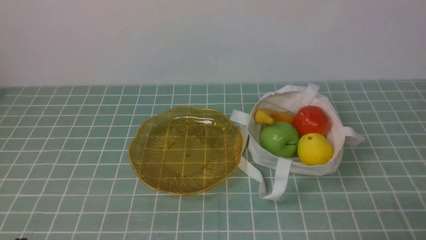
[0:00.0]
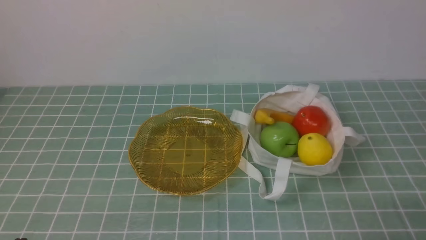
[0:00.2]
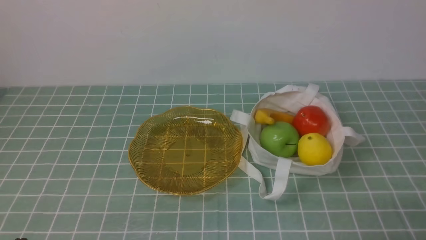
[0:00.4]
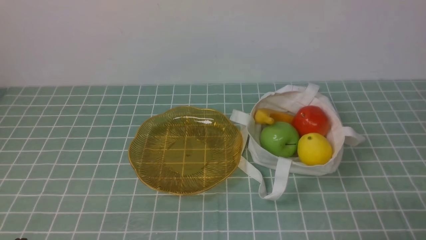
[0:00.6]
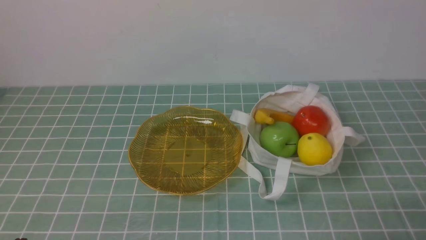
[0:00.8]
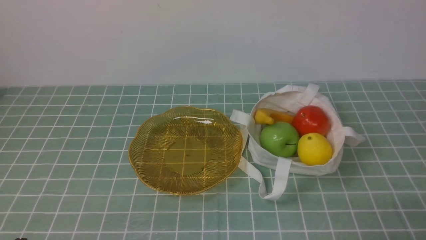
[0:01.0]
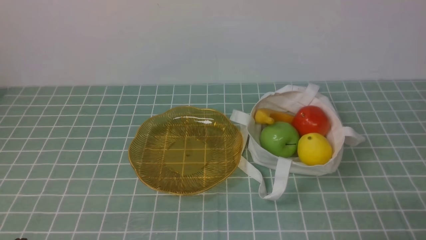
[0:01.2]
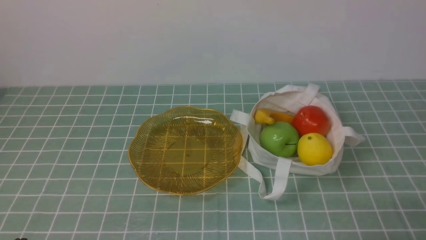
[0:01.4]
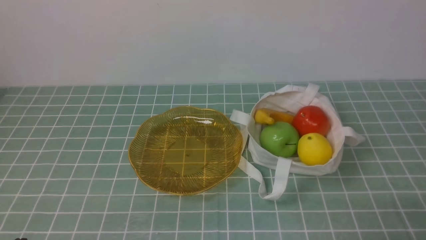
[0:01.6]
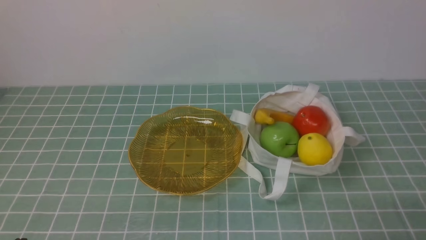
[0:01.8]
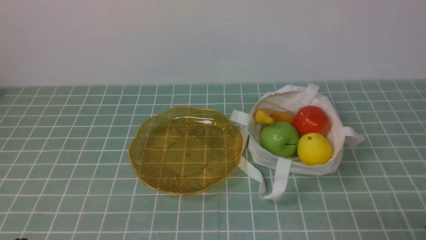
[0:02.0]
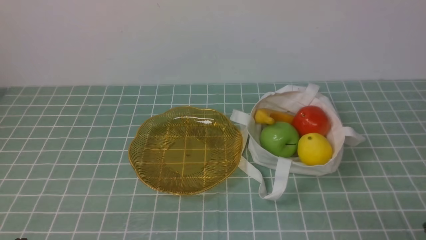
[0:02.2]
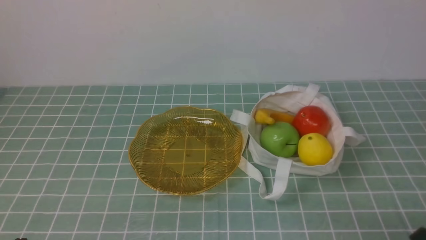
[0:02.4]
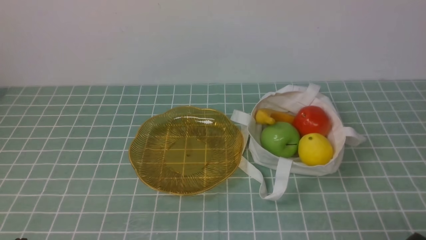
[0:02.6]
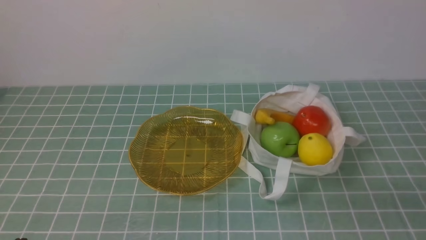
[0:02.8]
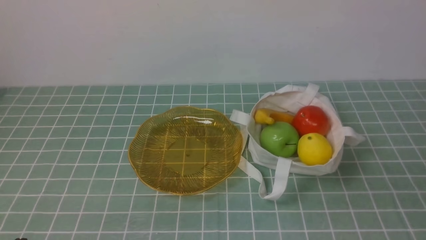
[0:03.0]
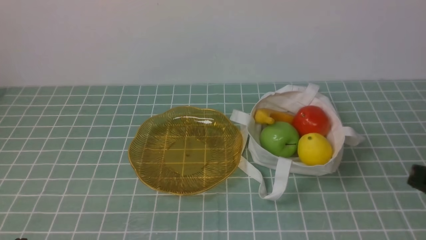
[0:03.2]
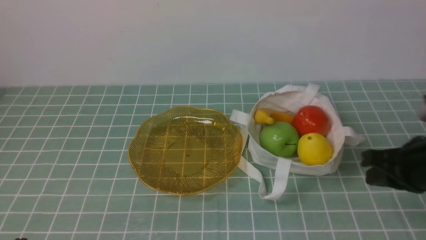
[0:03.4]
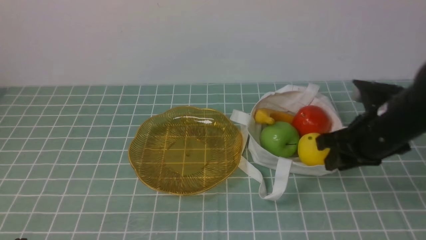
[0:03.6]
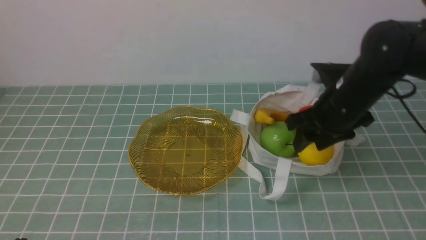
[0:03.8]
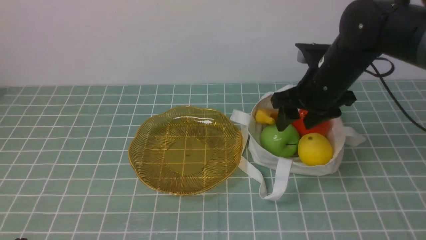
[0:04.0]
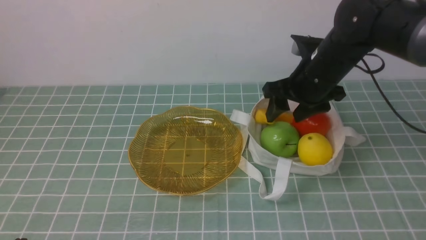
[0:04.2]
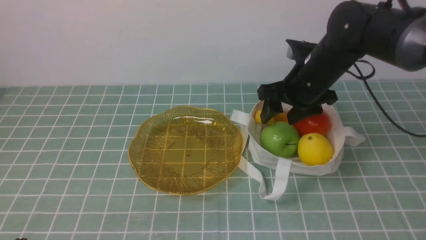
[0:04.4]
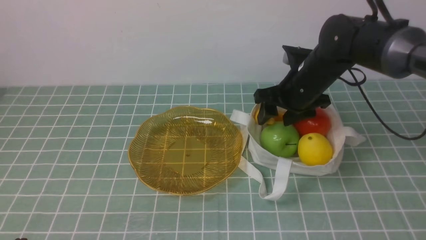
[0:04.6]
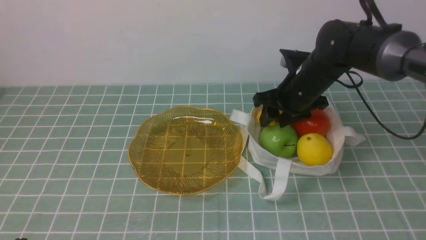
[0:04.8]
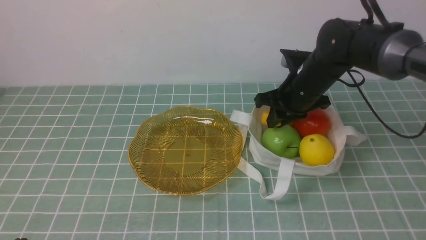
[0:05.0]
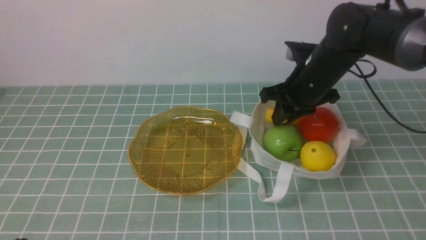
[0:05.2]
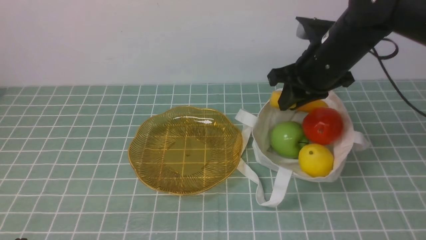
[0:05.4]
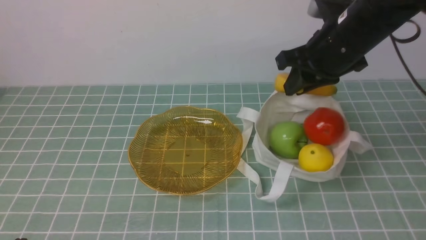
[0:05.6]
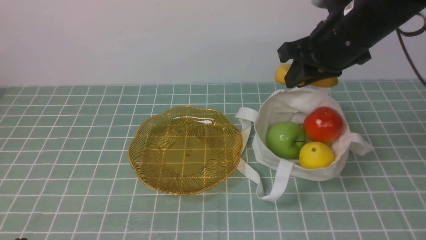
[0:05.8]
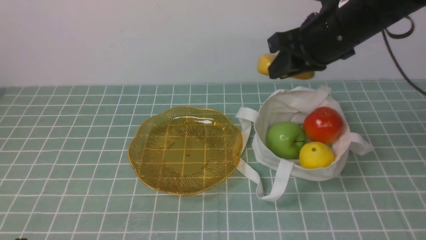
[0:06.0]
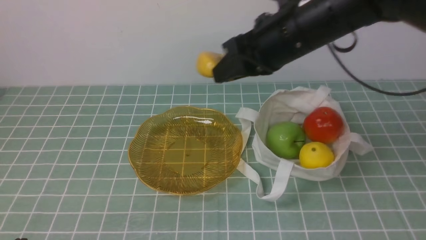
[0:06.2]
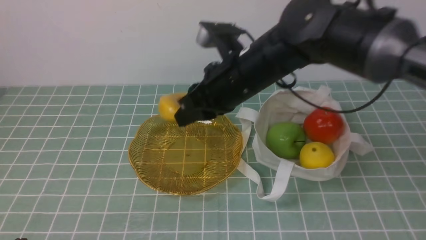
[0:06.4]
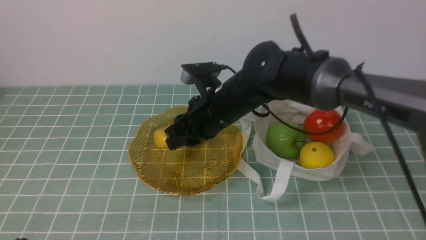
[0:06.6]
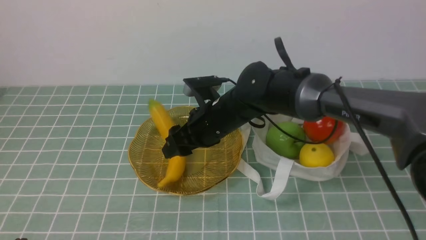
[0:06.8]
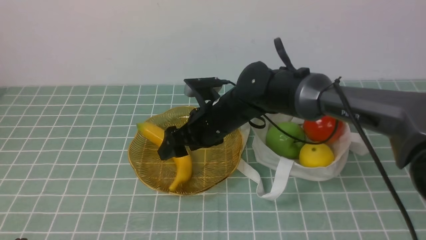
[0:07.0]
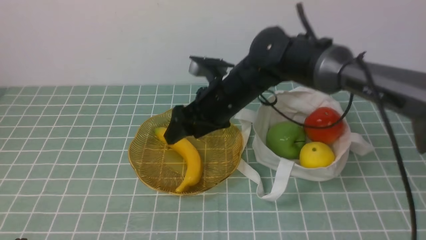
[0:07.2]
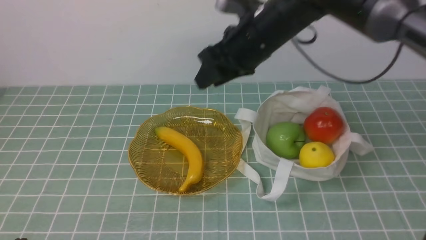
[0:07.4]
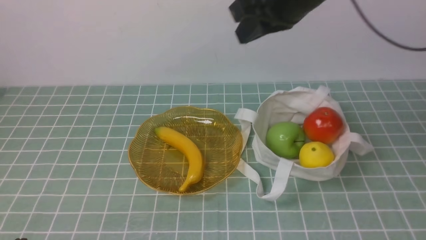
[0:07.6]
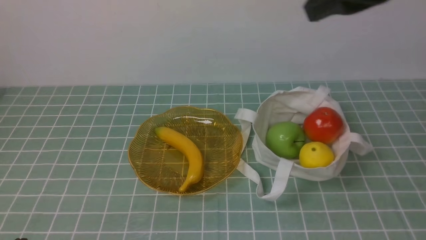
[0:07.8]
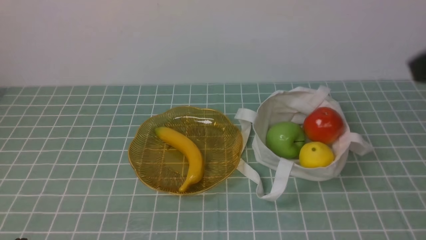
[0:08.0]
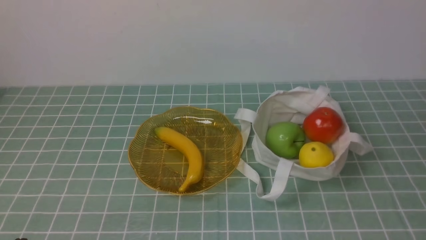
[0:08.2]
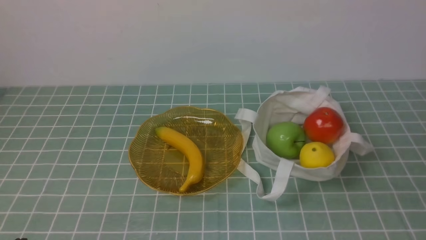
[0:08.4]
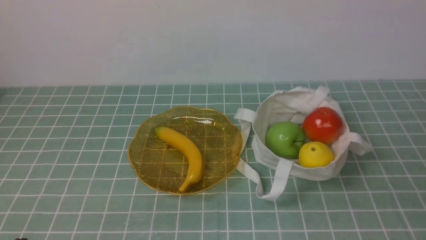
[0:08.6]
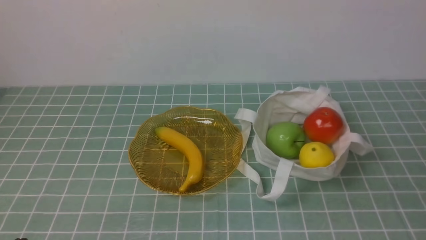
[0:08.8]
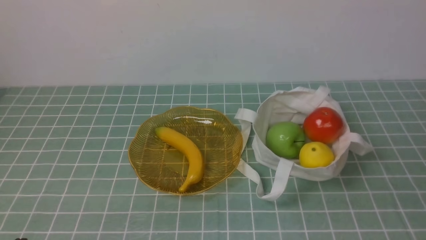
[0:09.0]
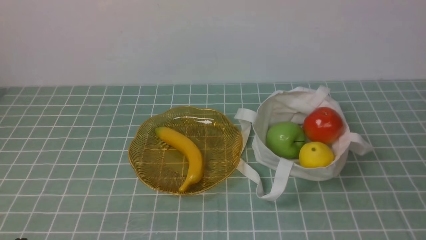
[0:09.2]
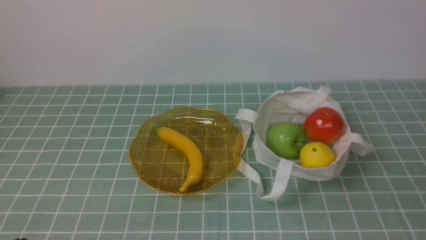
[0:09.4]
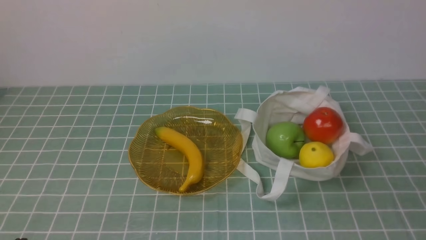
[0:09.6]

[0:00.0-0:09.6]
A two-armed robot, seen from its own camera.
Step, 0:00.0 to 0:05.4: use the right arm to grab a banana from the bag.
Step, 0:05.6 to 0:07.0: use the right arm to put the banana into the empty plate on the right.
0:03.2 to 0:04.8: The right gripper shifts about 35 cm forward and to the left, and opens its fingers.
0:04.8 to 0:06.4: The right gripper goes about 15 cm upward, to the left and backward, and closes up.
0:06.4 to 0:08.0: The right gripper moves upward, backward and to the right, some 25 cm, and opens and closes again.

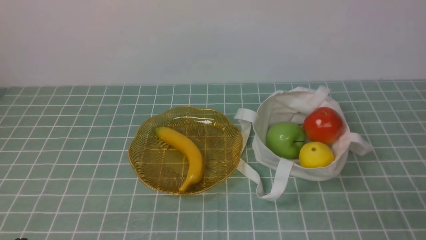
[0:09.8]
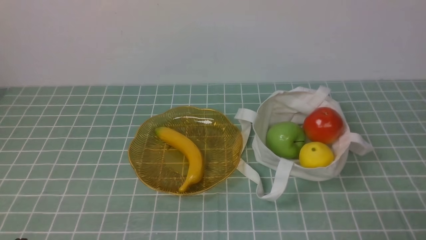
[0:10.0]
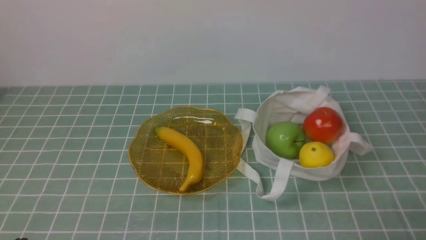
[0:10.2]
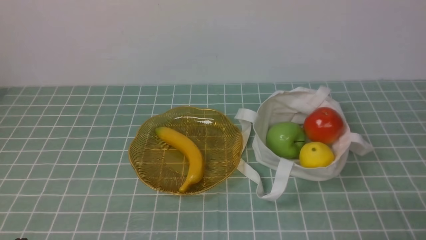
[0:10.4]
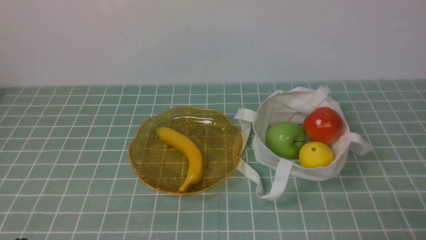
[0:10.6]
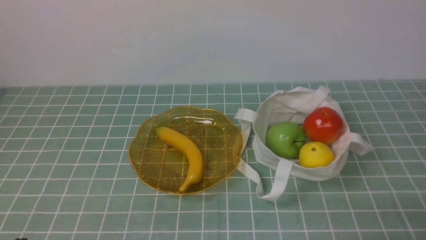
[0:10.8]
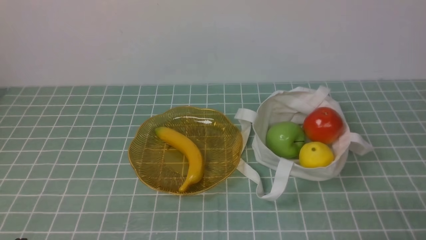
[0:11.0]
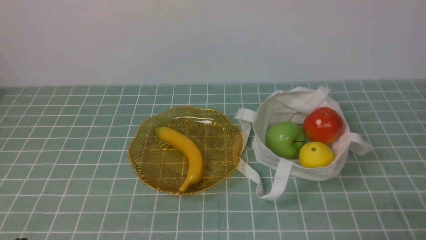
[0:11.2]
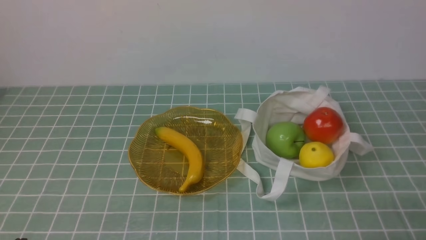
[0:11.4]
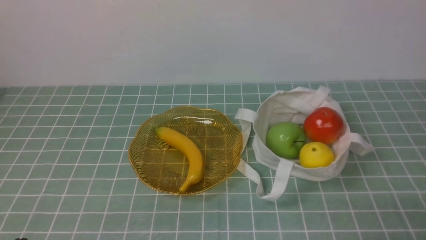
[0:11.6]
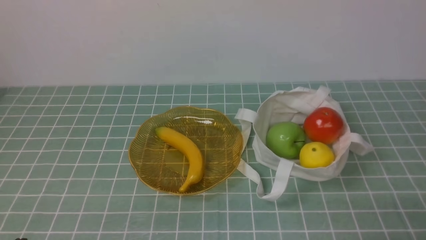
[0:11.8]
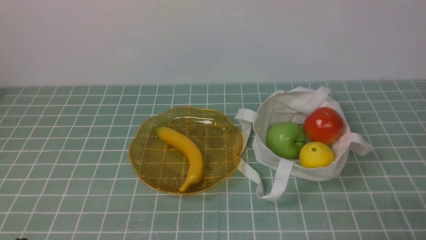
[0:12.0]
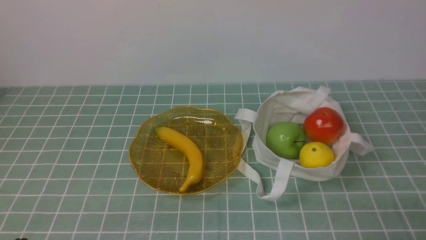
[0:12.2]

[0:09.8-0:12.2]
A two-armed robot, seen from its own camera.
0:11.0 to 0:12.2: Both grippers stay put.
